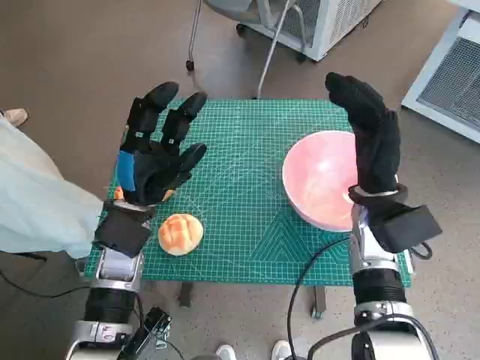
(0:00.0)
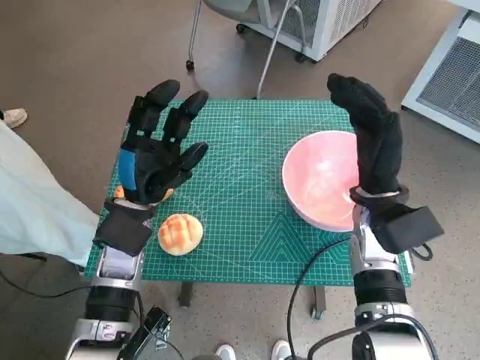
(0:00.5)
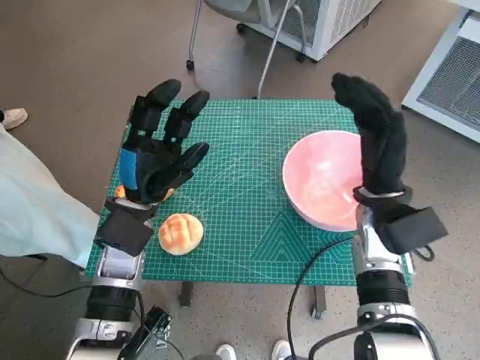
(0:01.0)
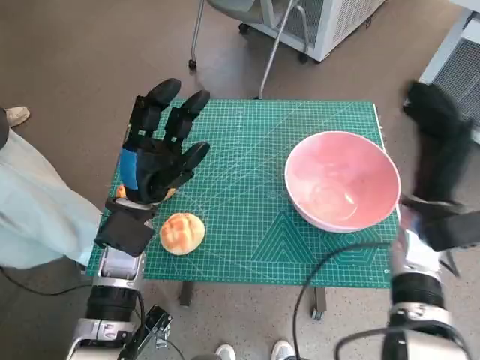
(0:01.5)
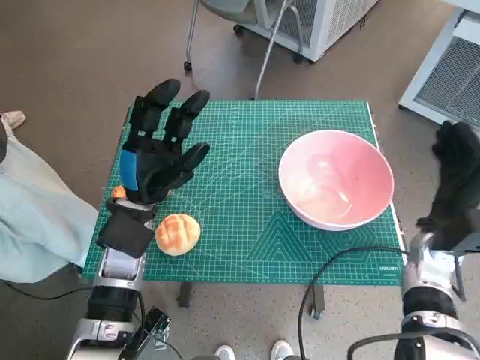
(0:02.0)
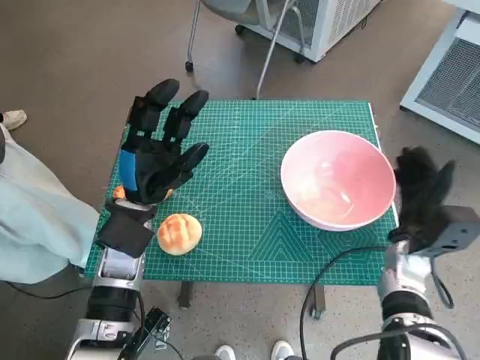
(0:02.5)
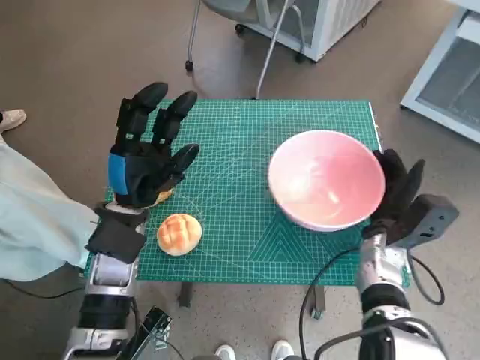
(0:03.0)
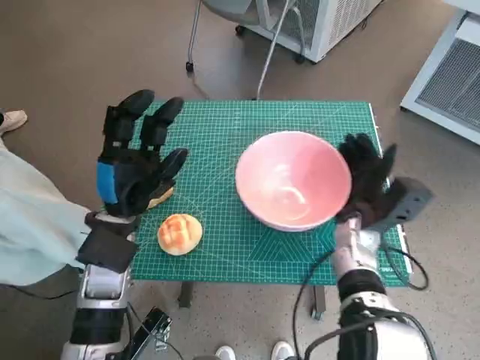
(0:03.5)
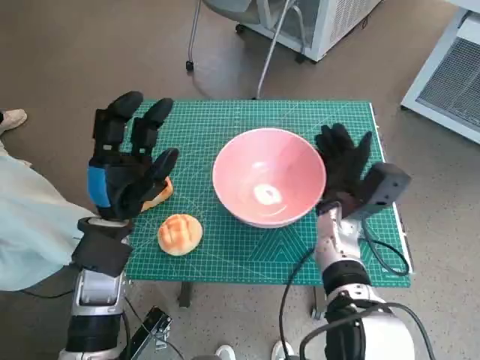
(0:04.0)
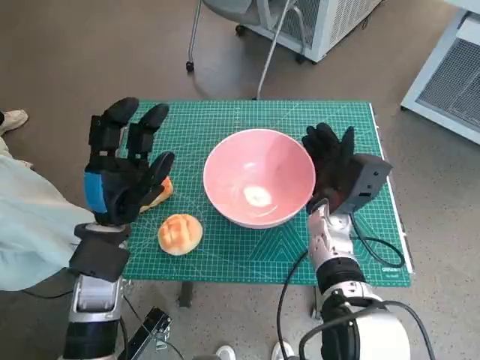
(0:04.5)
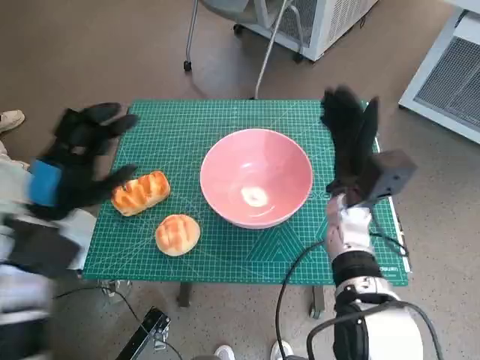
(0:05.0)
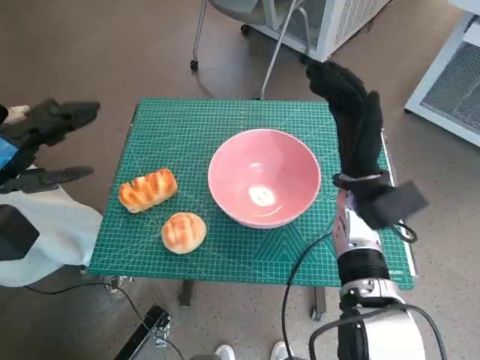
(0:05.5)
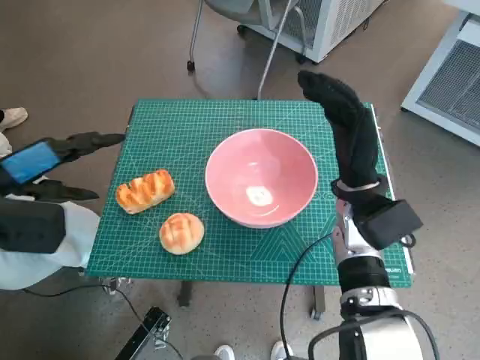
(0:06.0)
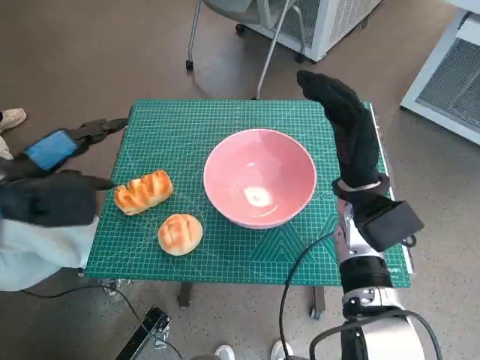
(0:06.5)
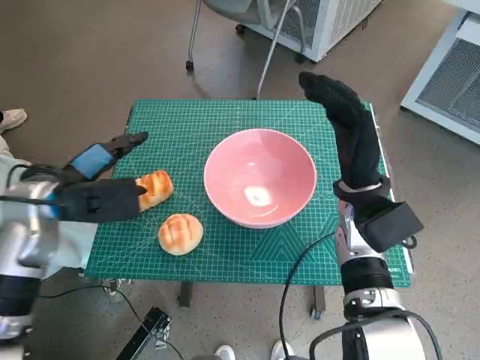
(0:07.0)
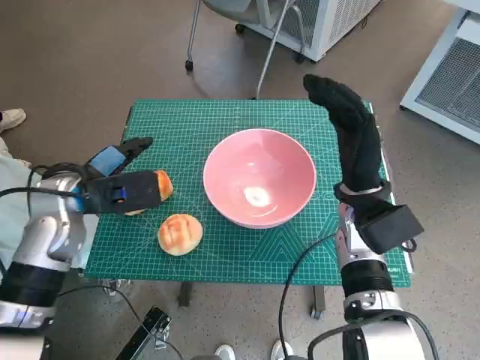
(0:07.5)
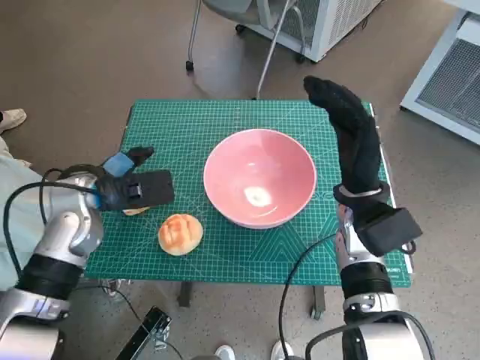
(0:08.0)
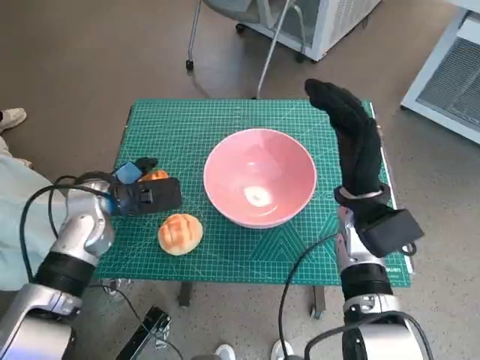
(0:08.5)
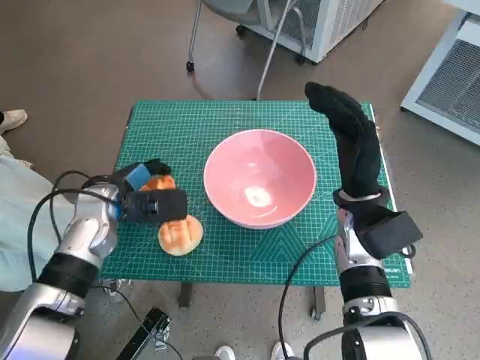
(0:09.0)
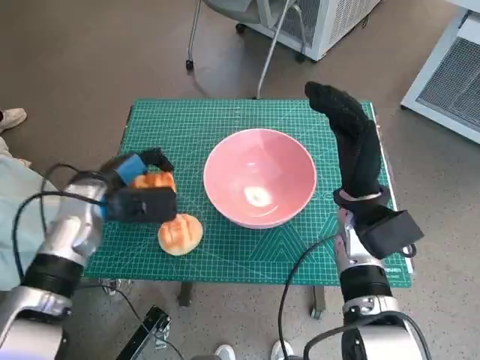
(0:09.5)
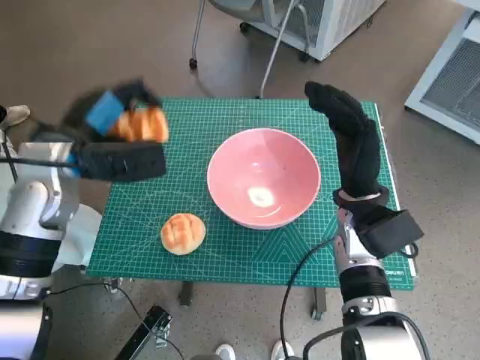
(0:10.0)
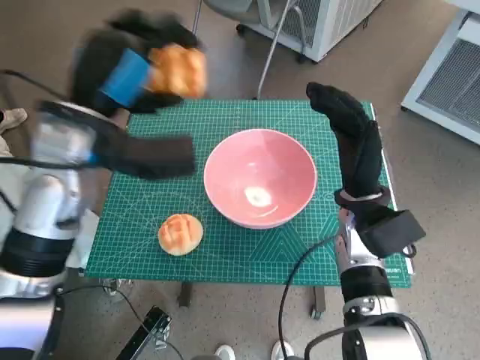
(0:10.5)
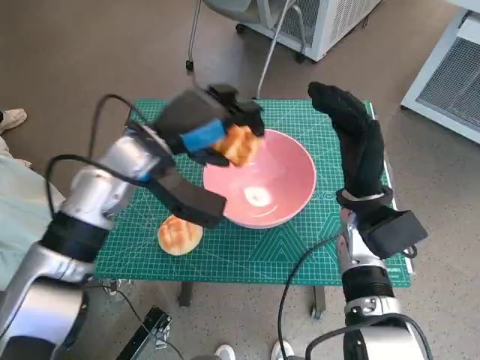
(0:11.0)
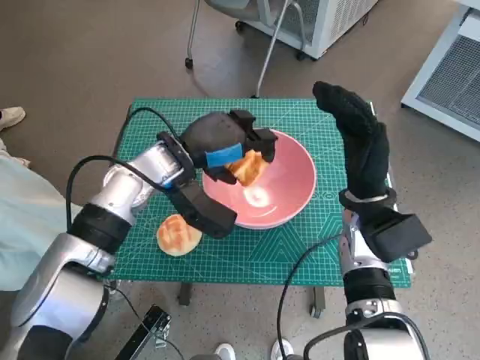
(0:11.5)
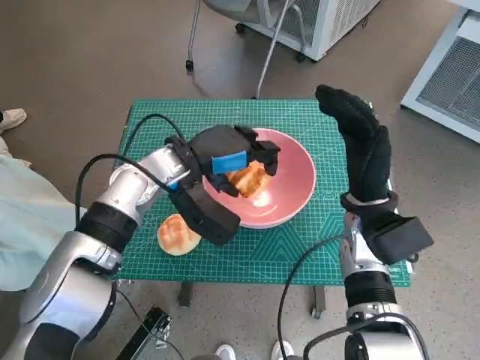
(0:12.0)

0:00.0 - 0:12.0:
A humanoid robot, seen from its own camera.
Task of the whole recording: Push the bowl to the center of the table and put the bread into the bowl.
Step, 0:00.0 - 0:04.5: Move the pink bowl to the center of table with right hand.
Step, 0:05.0 - 0:09.0: Grasp the long bread with left hand.
0:02.0 - 0:04.0: The right hand moves to the left, some 15 cm.
0:04.0 - 0:06.0: The left hand goes approximately 15 cm to the left and upward, while the right hand travels upward by some 5 cm.
0:06.0 - 0:08.0: The left hand shifts approximately 10 cm to the right, downward and forward.
0:08.0 - 0:10.0: The left hand travels upward by about 5 cm.
0:10.0 - 0:12.0: The left hand goes roughly 10 cm to the right.

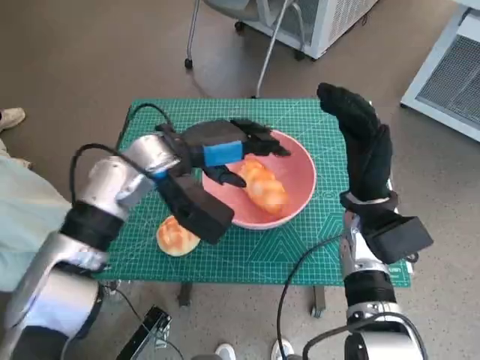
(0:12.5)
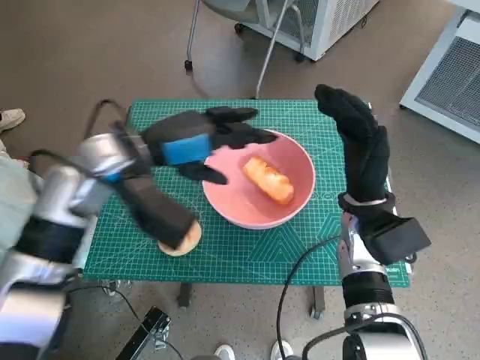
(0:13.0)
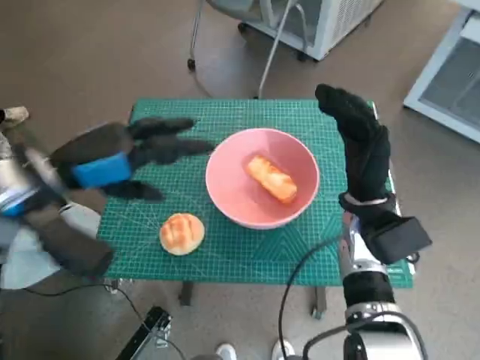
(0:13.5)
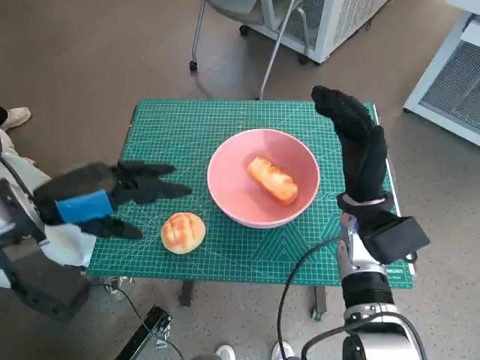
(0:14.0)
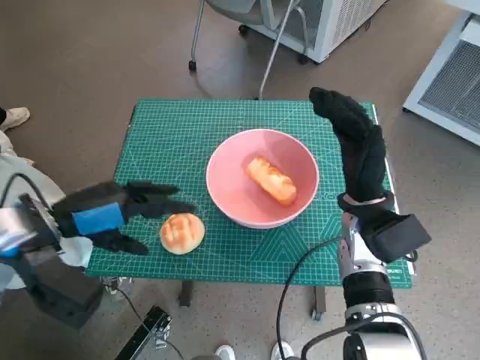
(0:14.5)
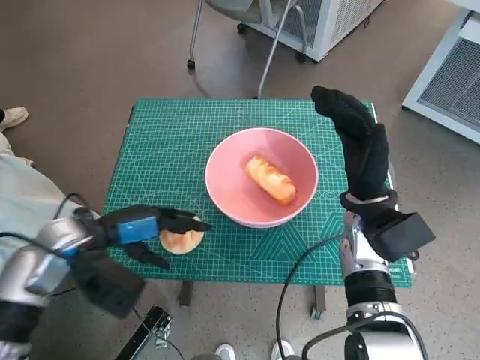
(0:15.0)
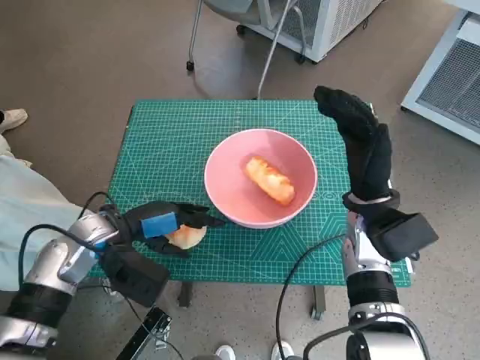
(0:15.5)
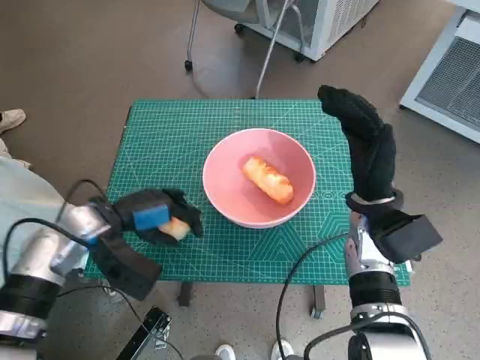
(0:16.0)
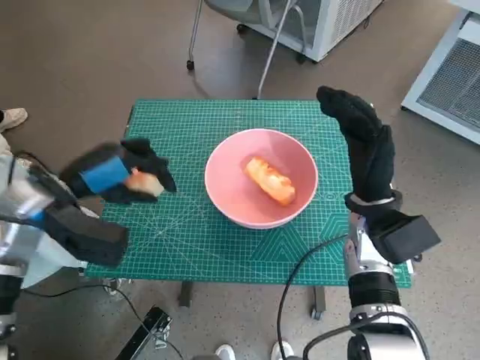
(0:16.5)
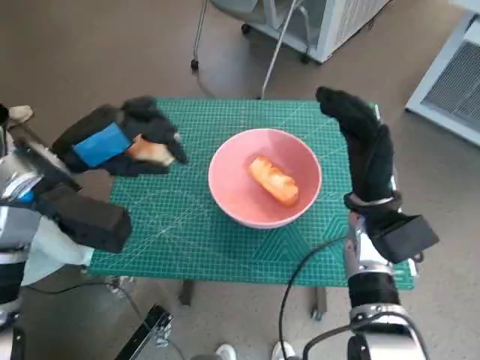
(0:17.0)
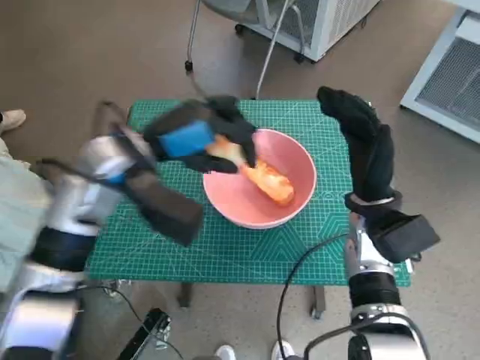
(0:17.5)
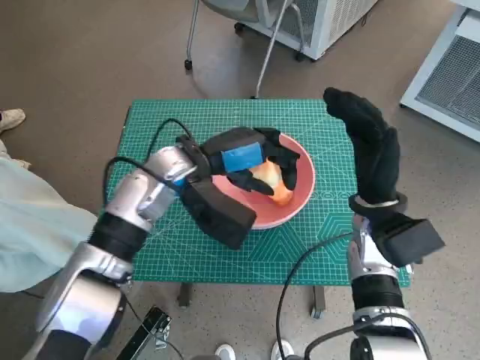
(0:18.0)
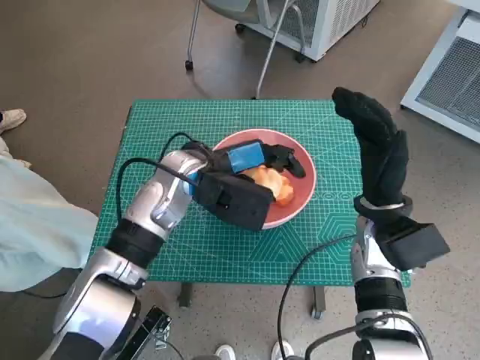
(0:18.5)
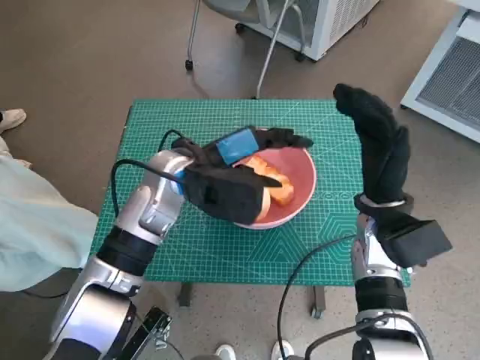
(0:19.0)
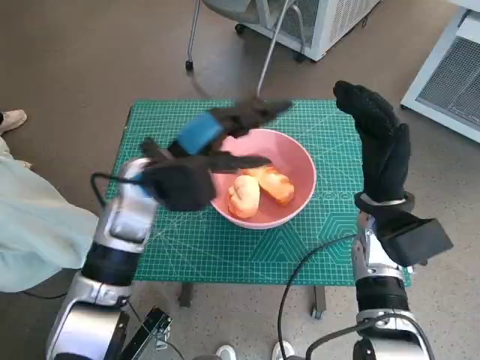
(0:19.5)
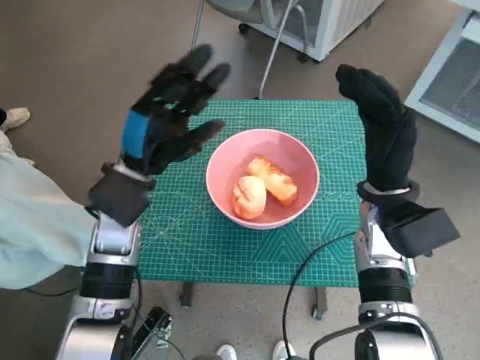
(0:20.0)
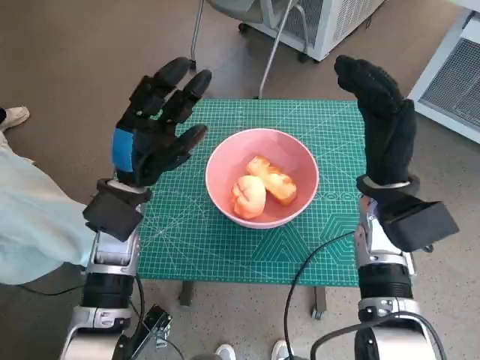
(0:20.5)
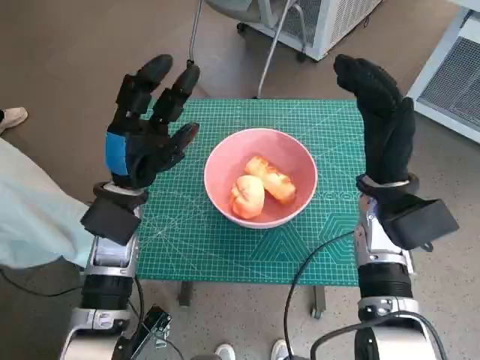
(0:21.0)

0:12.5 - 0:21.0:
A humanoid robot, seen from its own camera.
Task of the whole recording: Push the bowl to the center of the table and put the bread into the bowl.
Step, 0:13.0 - 0:15.5: Grasp the round bread with left hand.
Step, 0:16.0 - 0:18.5: Place the round bread in pink bowl with left hand.
0:12.5 - 0:14.5: The left hand heads to the left and backward, covering roughly 15 cm.
0:14.5 - 0:16.5: The left hand moves roughly 10 cm downward and comes back.
0:16.5 - 0:19.0: The left hand moves to the right, roughly 15 cm.
0:19.0 - 0:21.0: The left hand is displaced to the left by about 10 cm.

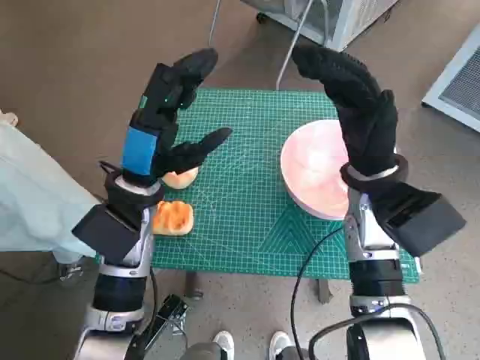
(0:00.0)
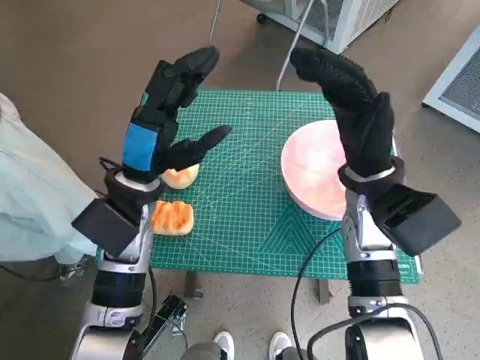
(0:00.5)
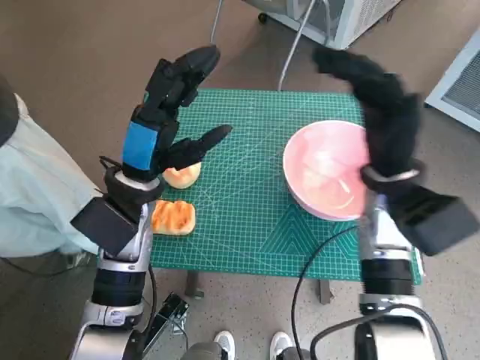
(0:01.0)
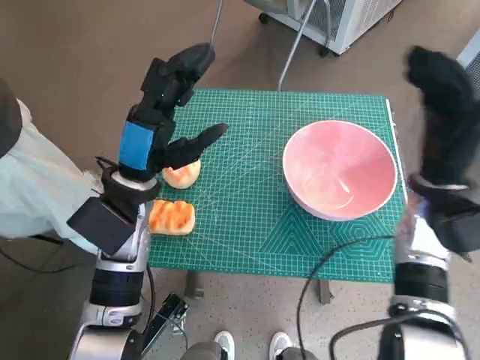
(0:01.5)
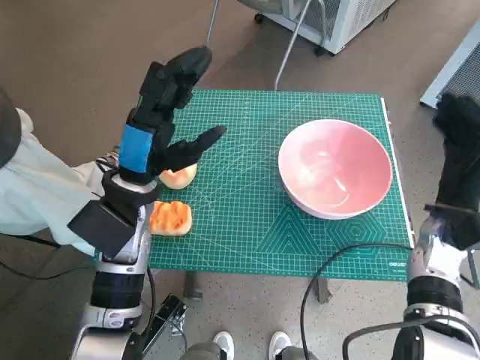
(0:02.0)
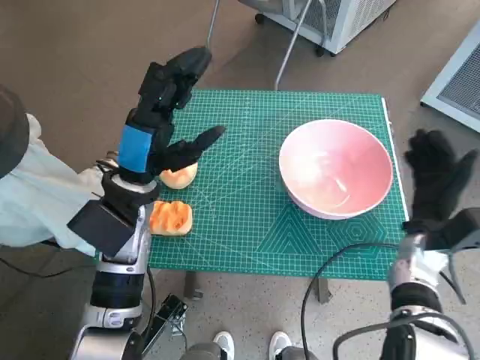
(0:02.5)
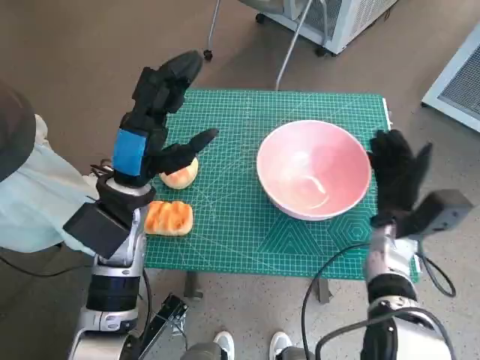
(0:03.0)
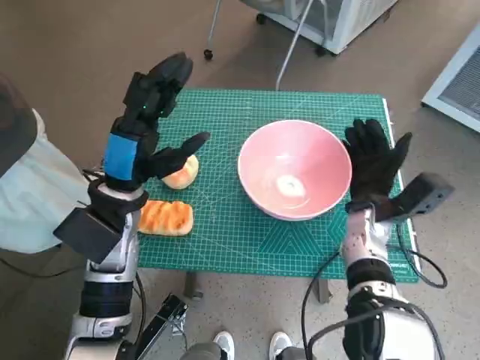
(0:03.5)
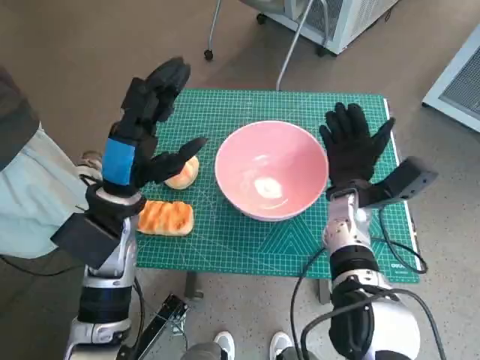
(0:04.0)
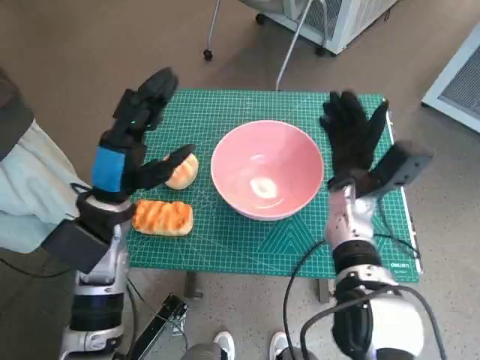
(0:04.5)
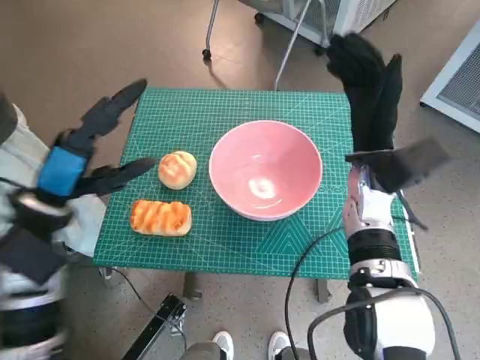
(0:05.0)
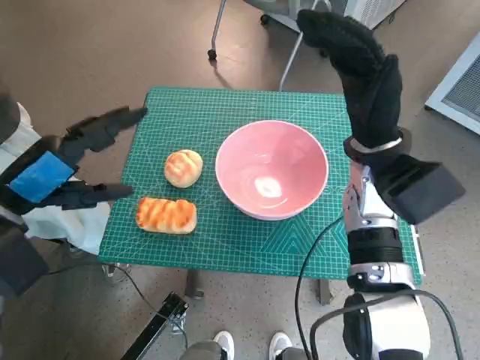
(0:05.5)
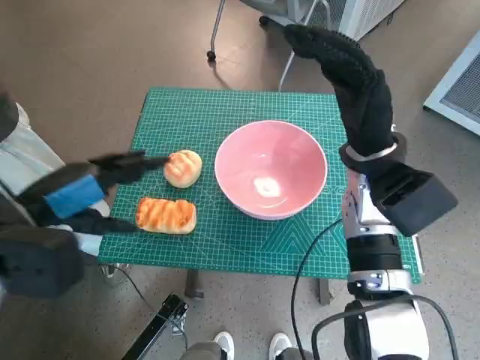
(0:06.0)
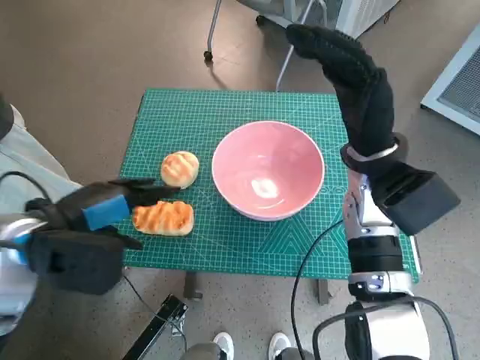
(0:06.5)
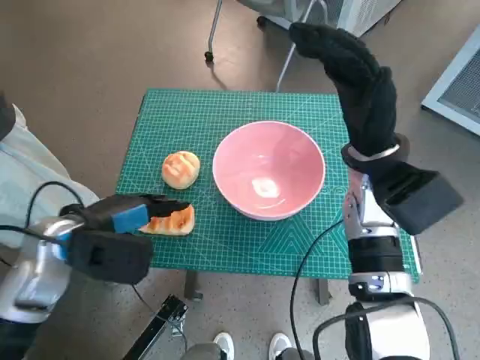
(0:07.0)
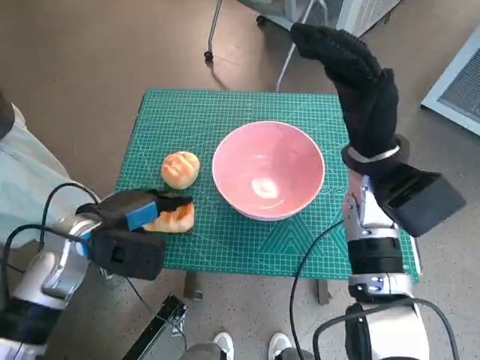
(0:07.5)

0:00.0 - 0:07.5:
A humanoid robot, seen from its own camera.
Task of the whole recording: Push the bowl to the center of the table and put the bread into the bowl.
Step, 0:00.0 - 0:04.0: Move the pink bowl to the center of table with right hand.
0:02.0 - 0:04.0: The right hand moves to the left, approximately 10 cm.
0:04.0 - 0:05.5: The left hand goes about 15 cm to the left, upward and backward. The right hand shifts roughly 10 cm upward.
0:05.5 - 0:07.5: The left hand shifts roughly 10 cm downward.
